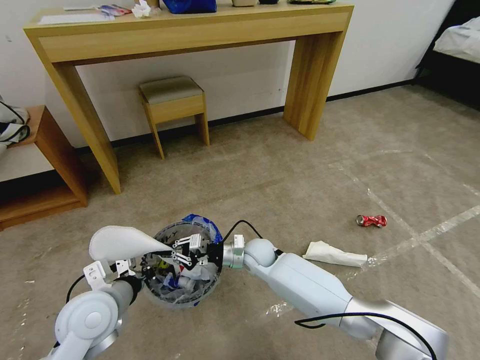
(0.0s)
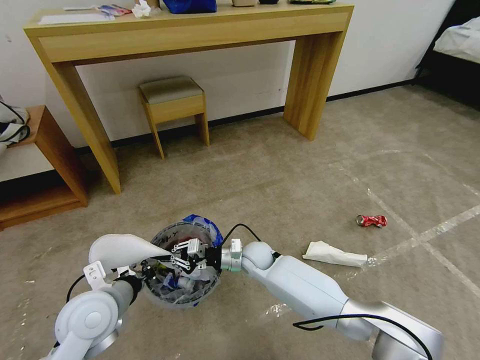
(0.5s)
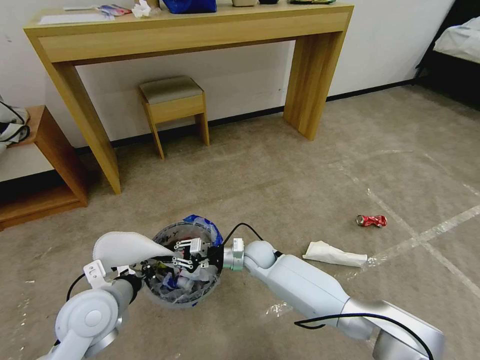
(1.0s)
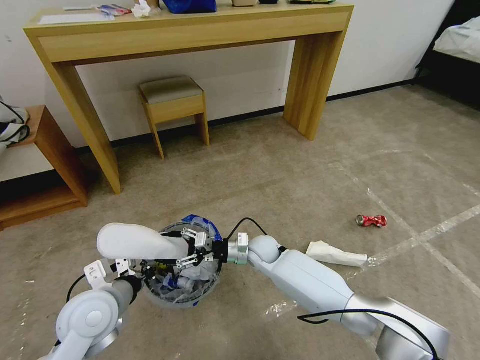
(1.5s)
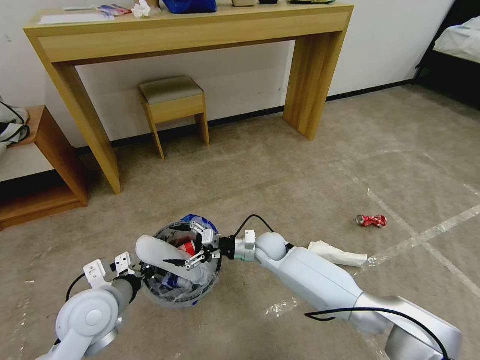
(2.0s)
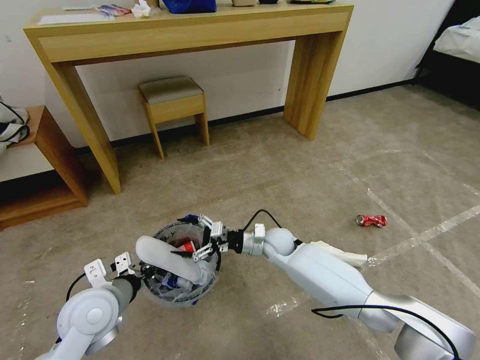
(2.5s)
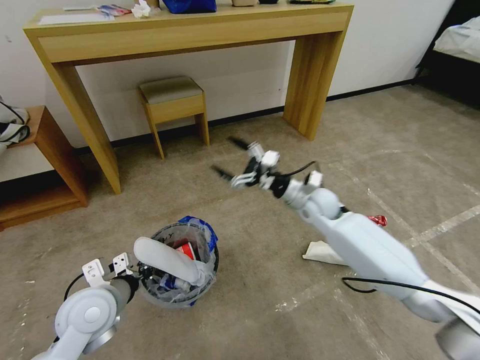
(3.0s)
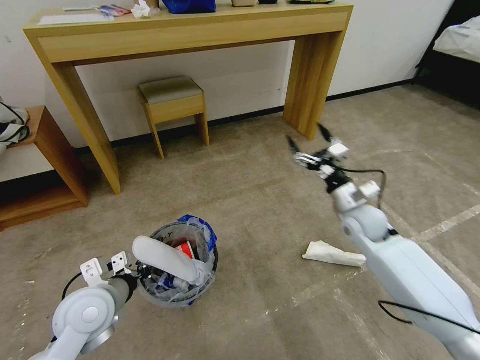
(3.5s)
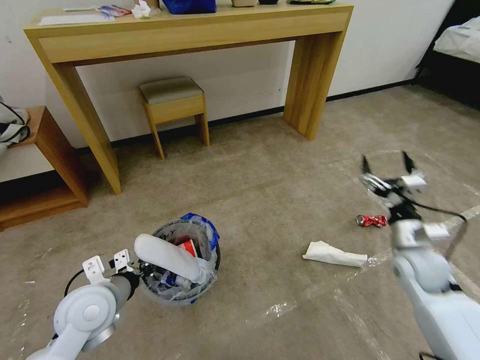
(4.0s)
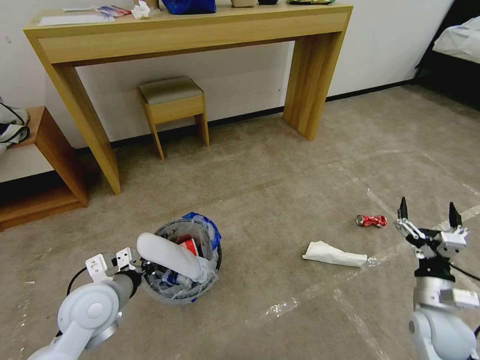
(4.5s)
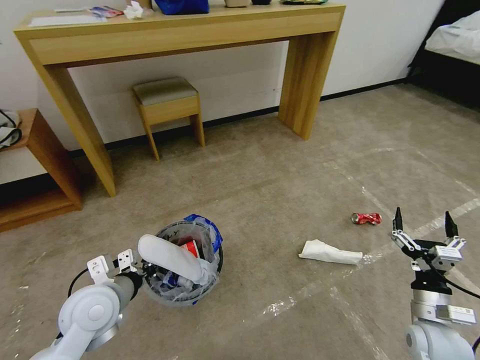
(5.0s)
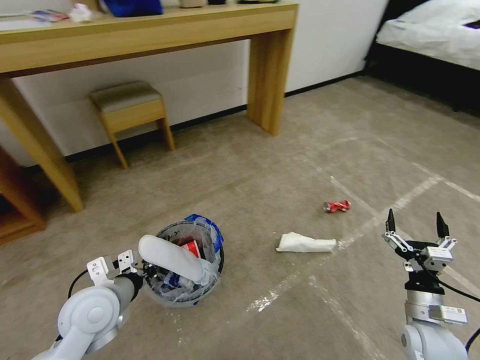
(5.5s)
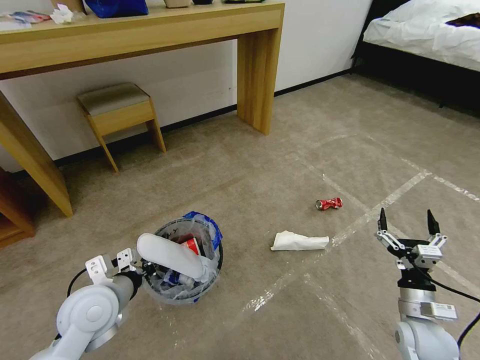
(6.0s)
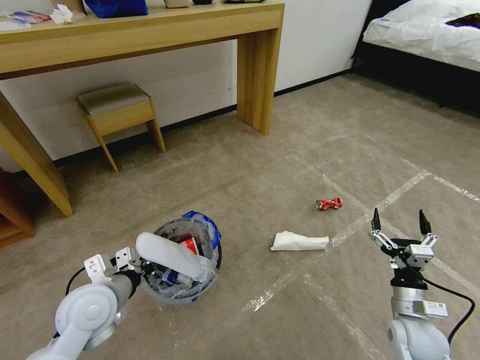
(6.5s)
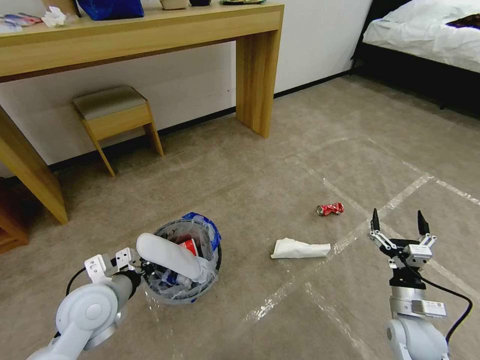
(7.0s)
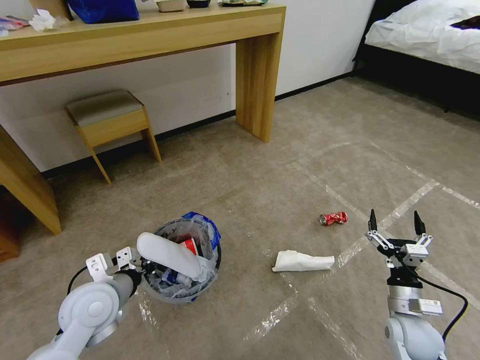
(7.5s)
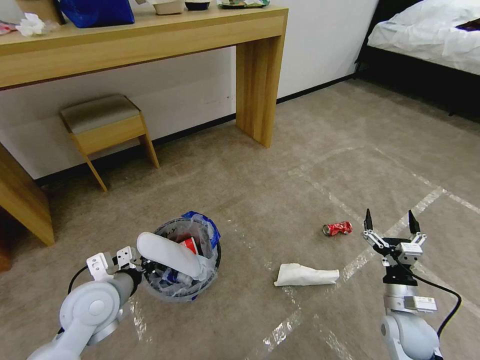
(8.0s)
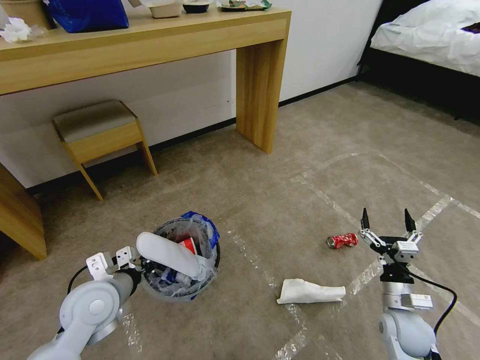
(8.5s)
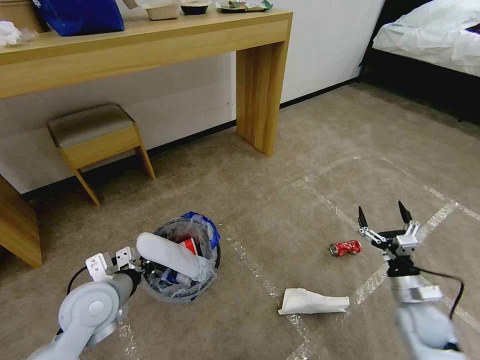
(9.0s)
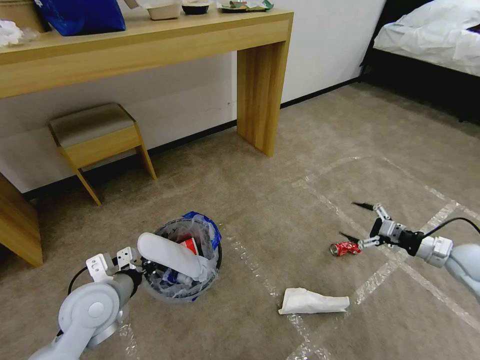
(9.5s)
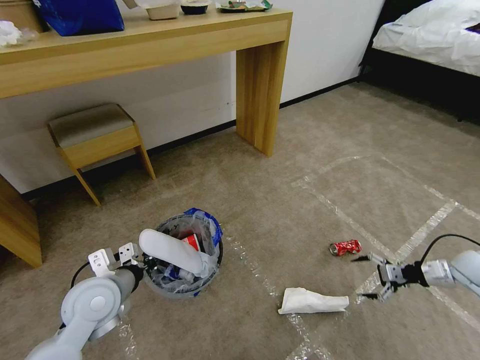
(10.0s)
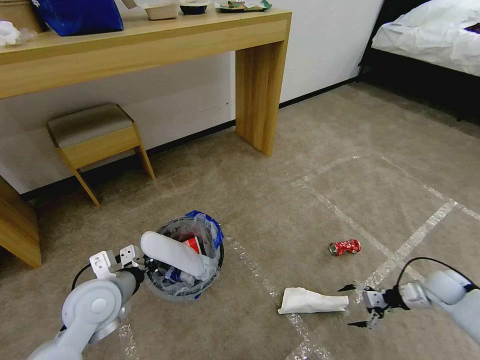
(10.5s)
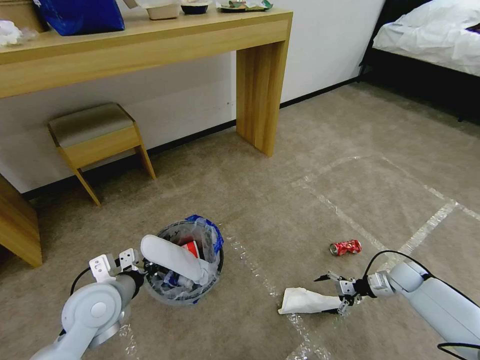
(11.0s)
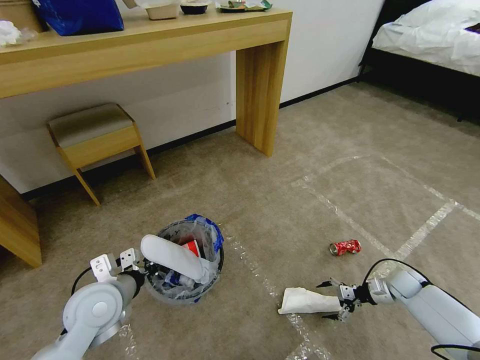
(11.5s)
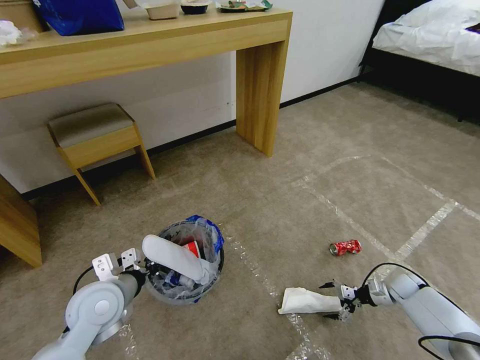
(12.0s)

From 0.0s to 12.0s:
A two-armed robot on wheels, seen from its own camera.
Task of the whole recording: Pick up the trash bin and place the garbage on the floor into it.
From 0.0s to 2.0s: The right gripper opens up.
From 2.0s to 4.0s: The right gripper heads to the right, covering about 30 cm.
From 4.0s to 6.0s: The right gripper moves backward and downward, roughly 15 cm.
From 8.0s to 10.0s: The right gripper moves to the right and forward, roughly 25 cm.
From 10.0s to 12.0s: The right gripper shifts some 20 cm downward.

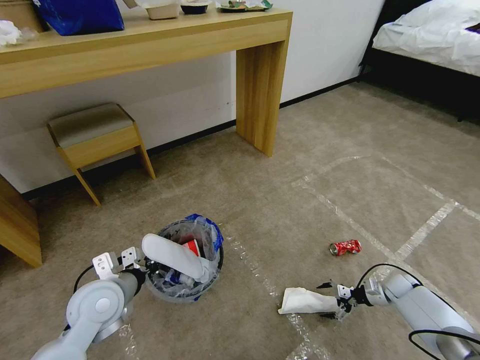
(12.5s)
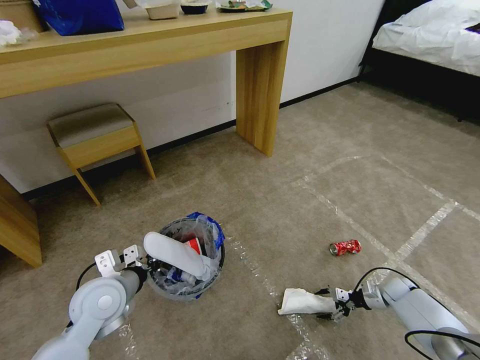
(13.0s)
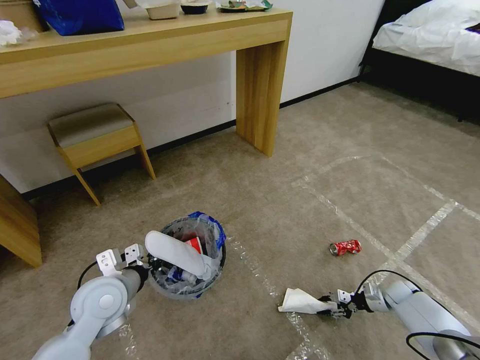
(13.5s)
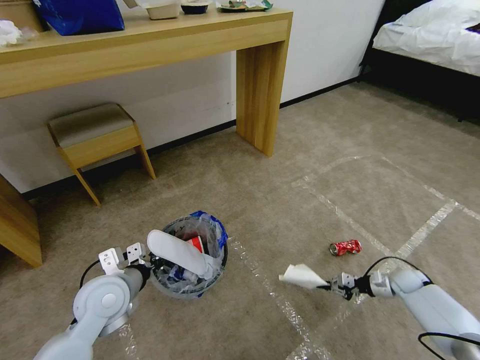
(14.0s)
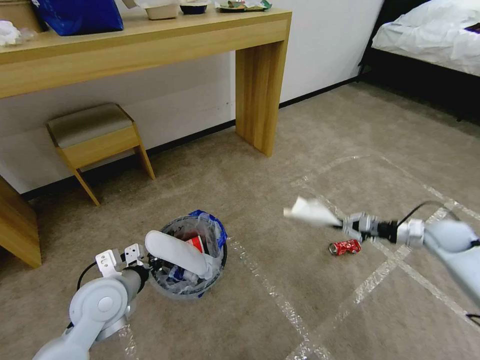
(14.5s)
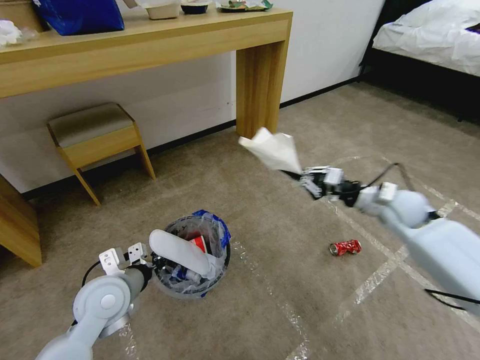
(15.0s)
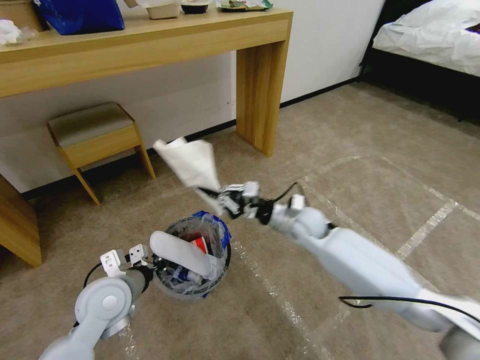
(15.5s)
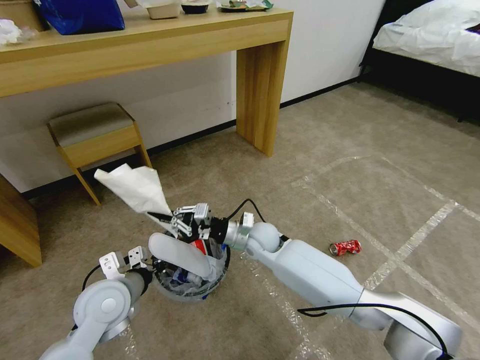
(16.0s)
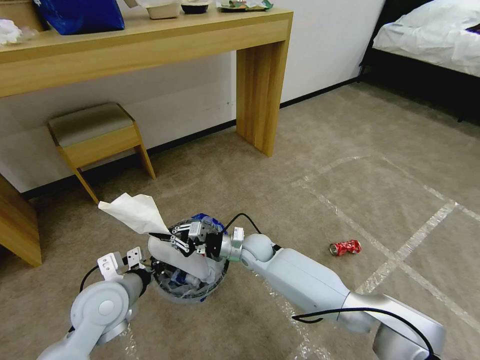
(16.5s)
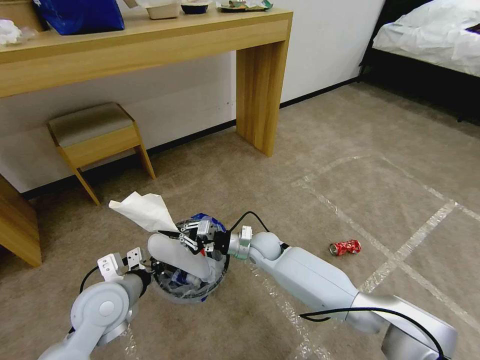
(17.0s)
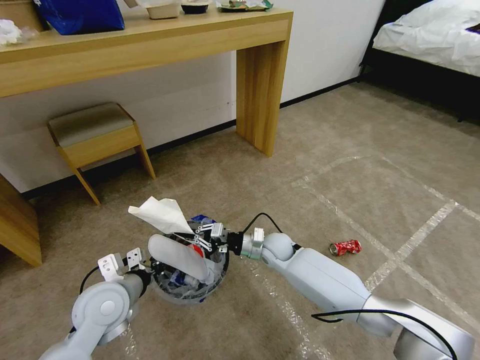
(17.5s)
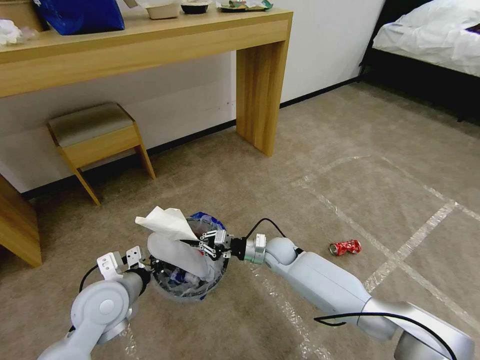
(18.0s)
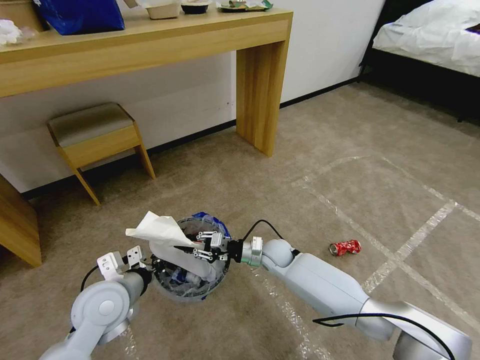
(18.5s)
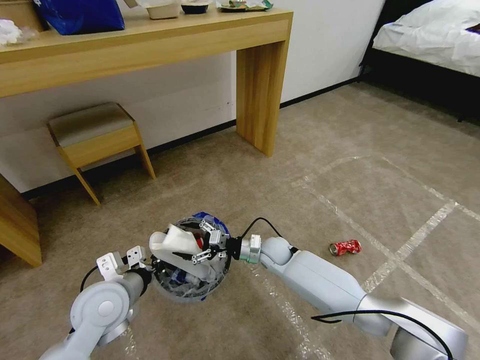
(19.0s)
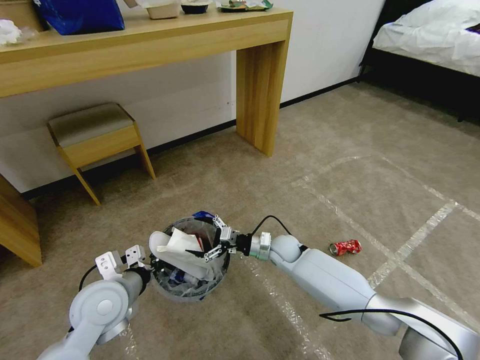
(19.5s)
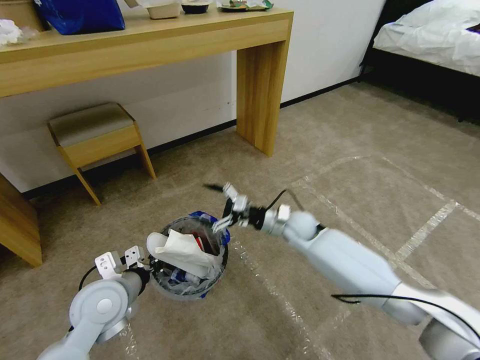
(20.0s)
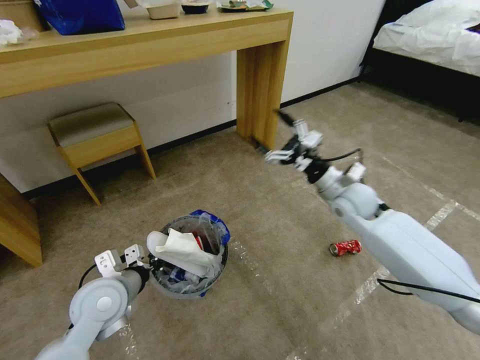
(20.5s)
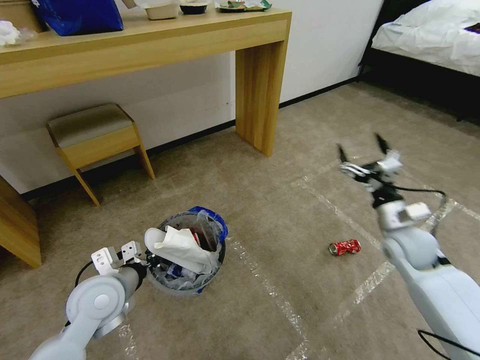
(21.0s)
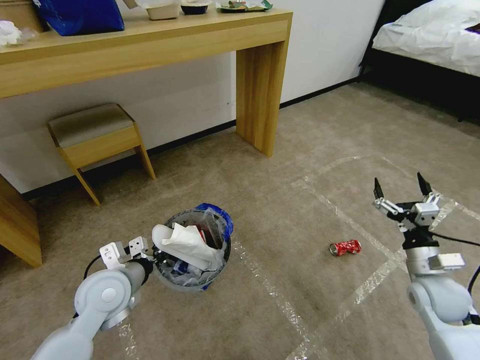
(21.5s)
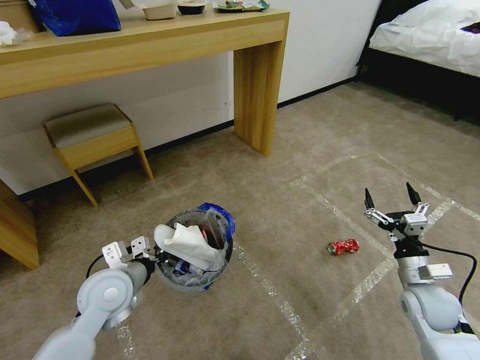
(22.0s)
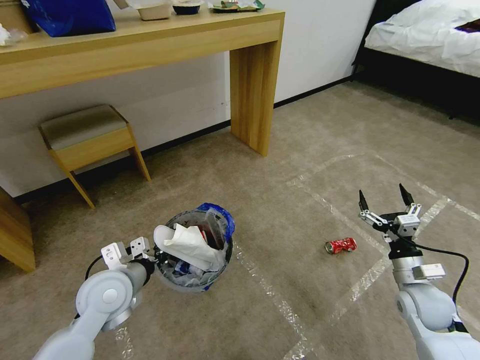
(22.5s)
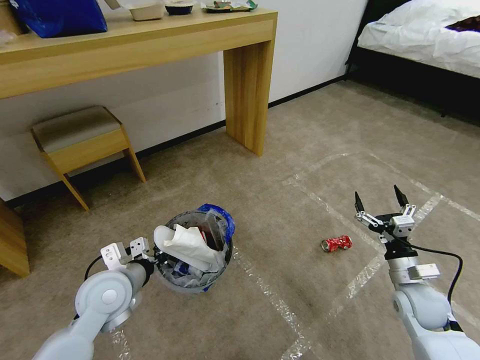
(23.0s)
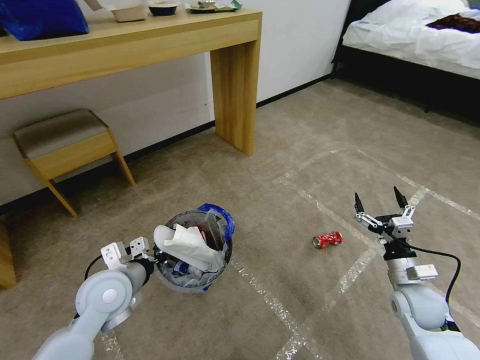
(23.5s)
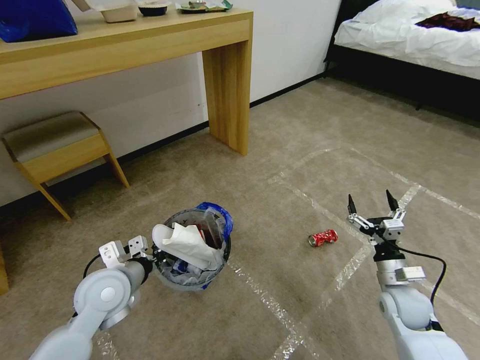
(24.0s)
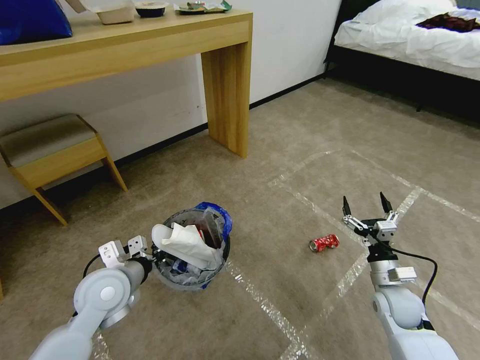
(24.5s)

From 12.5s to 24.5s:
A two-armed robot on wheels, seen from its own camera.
Task of the whole recording: Pick up the trash bin and place the garbage on the floor into it.
From 12.5s to 14.5s: The right gripper moves upward, about 25 cm, and closes up.
From 14.5s to 16.5s: The right gripper shifts approximately 50 cm to the left.
From 16.5s to 18.5s: The right gripper travels to the right by about 5 cm.
From 18.5s to 20.5s: The right gripper moves upward and to the right, roughly 25 cm, and opens up.
From 20.5s to 22.5s: The right gripper shifts roughly 25 cm backward, downward and to the right.
From 22.5s to 24.5s: The right gripper changes place by some 5 cm.

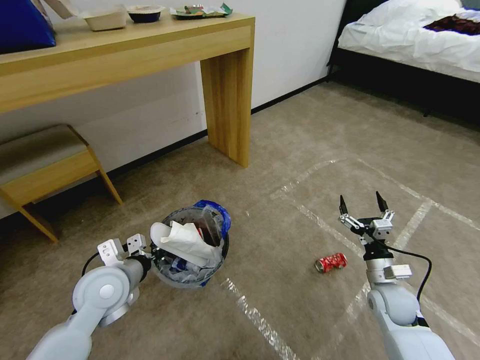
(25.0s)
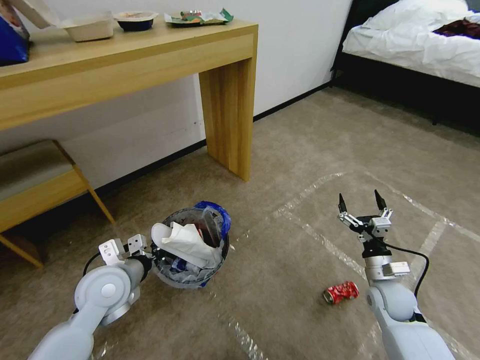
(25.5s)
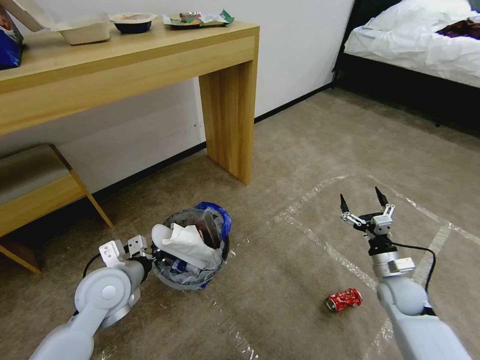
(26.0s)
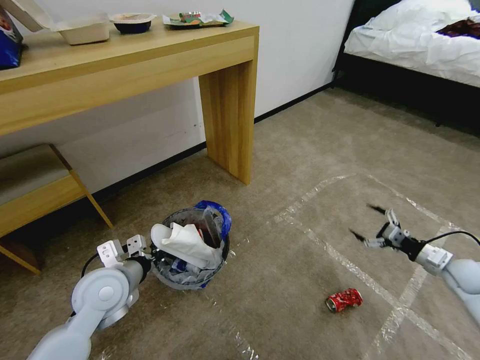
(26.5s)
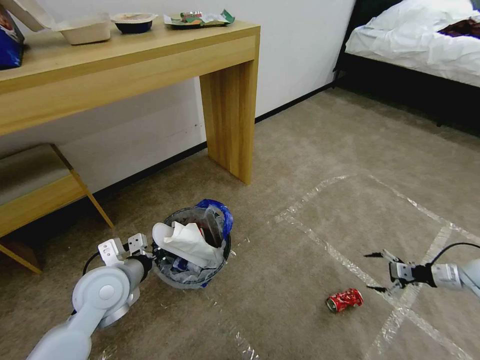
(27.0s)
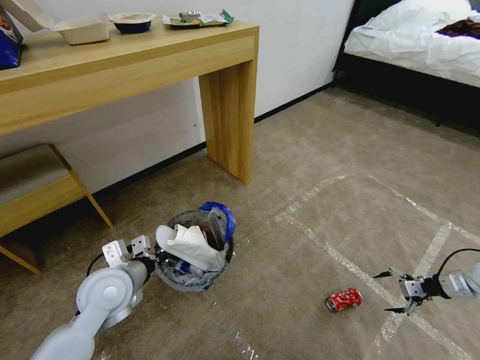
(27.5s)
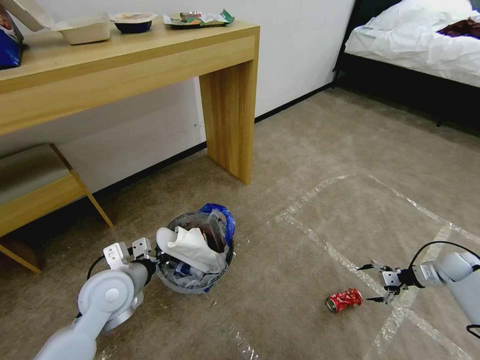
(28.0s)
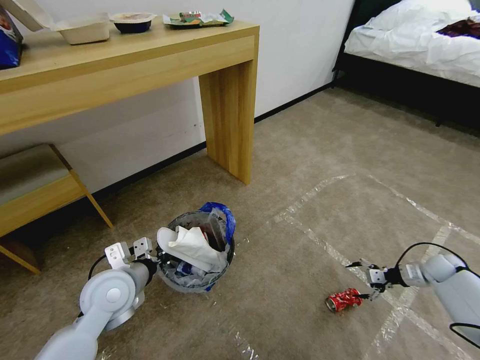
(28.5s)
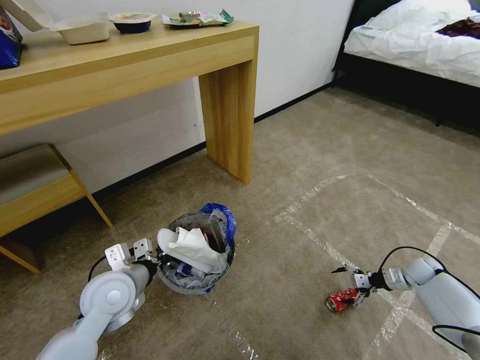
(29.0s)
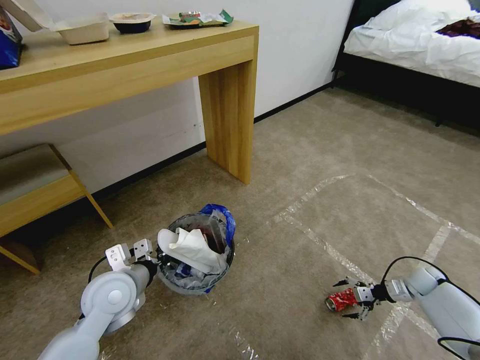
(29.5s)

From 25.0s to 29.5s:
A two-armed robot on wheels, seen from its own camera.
Task of the whole recording: Pick up the trash bin and place the garbage on the floor into it.
From 25.0s to 27.0s: The right gripper moves to the right, roughly 25 cm.
From 27.0s to 29.5s: The right gripper moves downward and to the left, roughly 10 cm.
